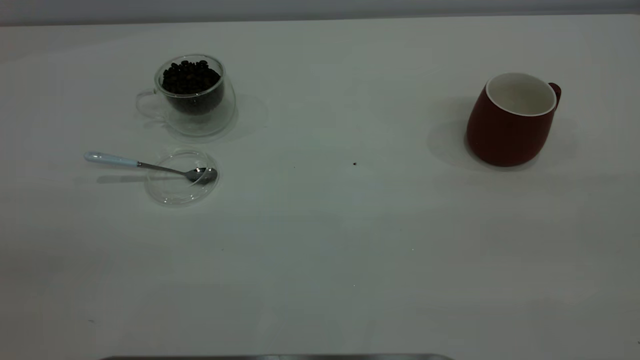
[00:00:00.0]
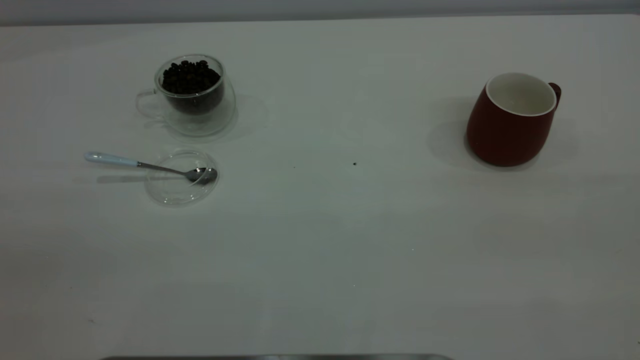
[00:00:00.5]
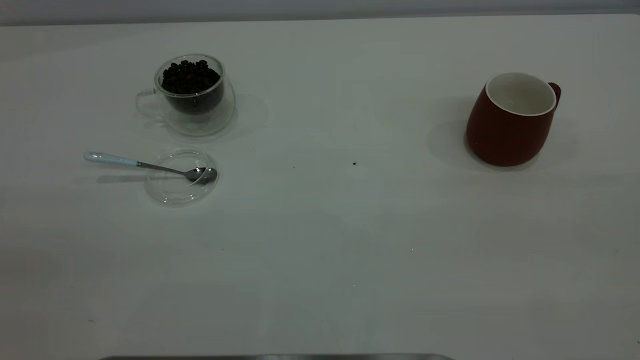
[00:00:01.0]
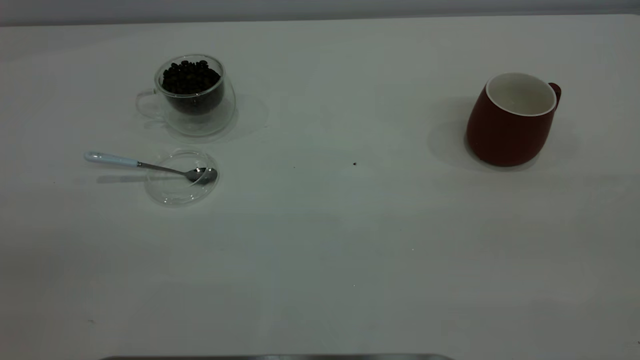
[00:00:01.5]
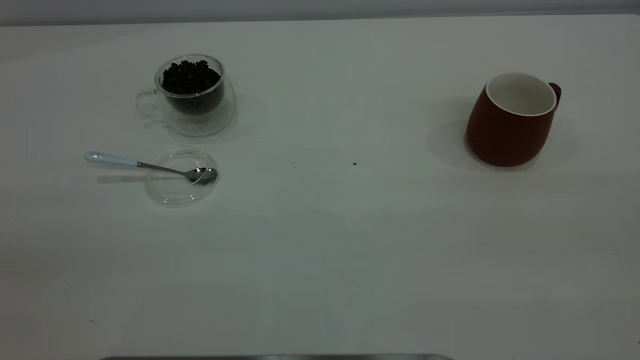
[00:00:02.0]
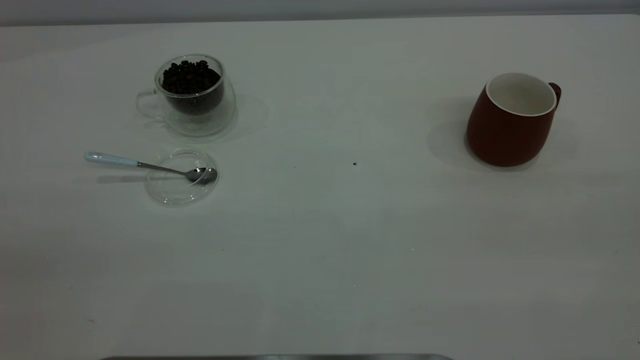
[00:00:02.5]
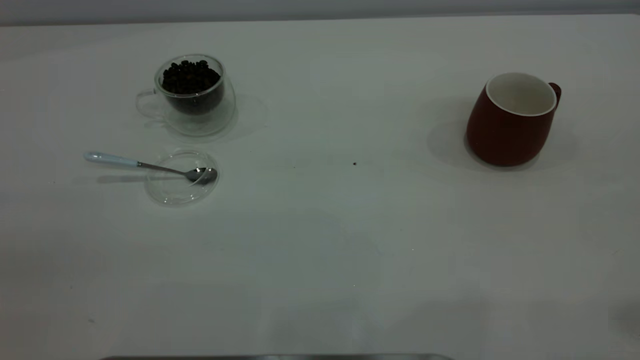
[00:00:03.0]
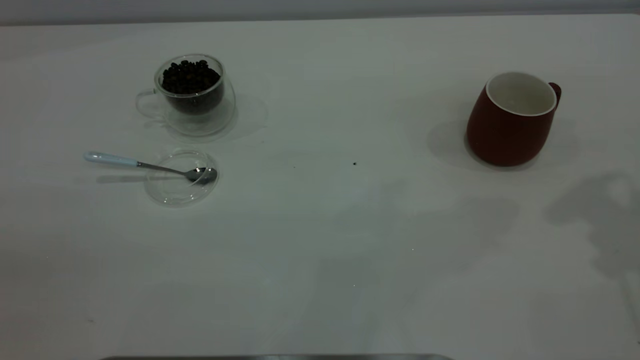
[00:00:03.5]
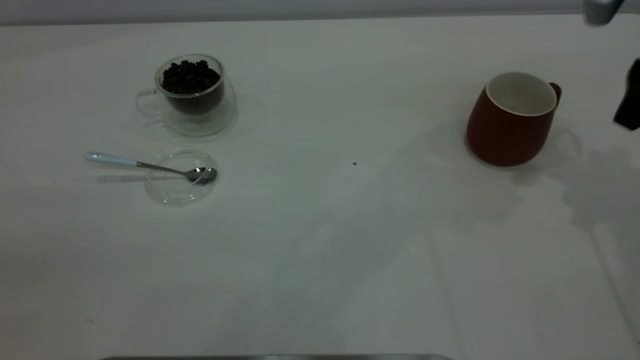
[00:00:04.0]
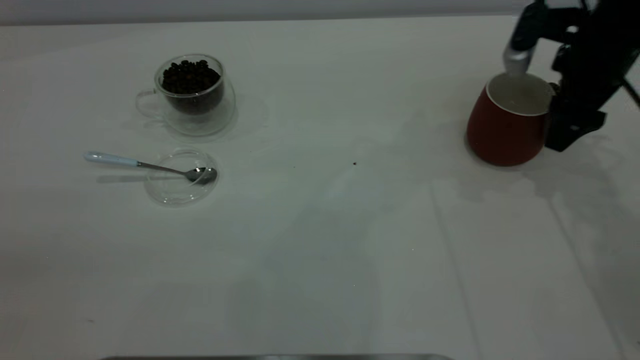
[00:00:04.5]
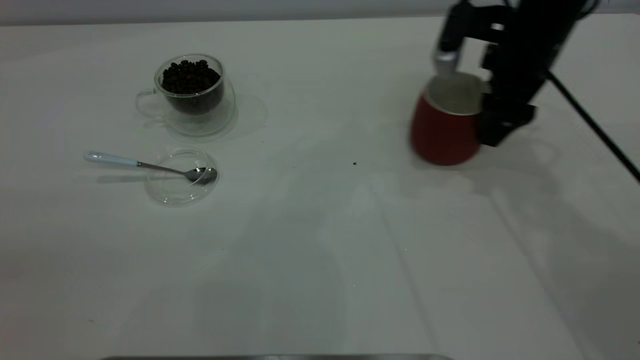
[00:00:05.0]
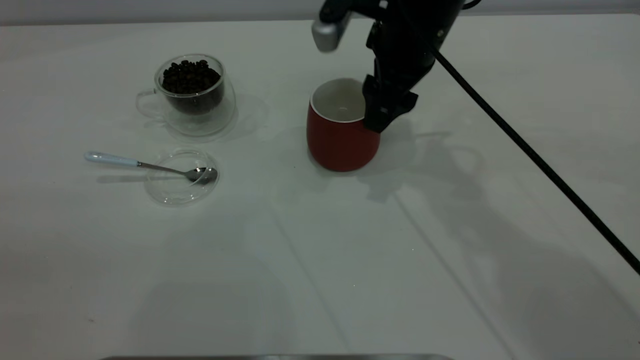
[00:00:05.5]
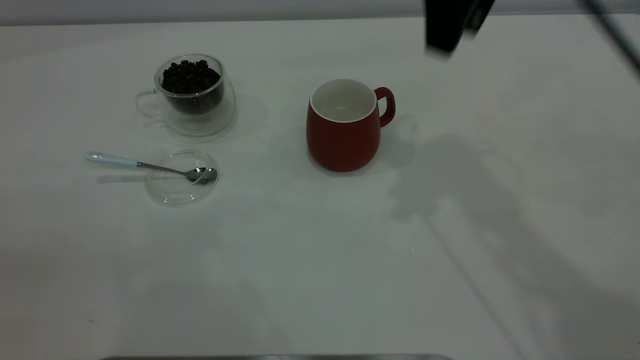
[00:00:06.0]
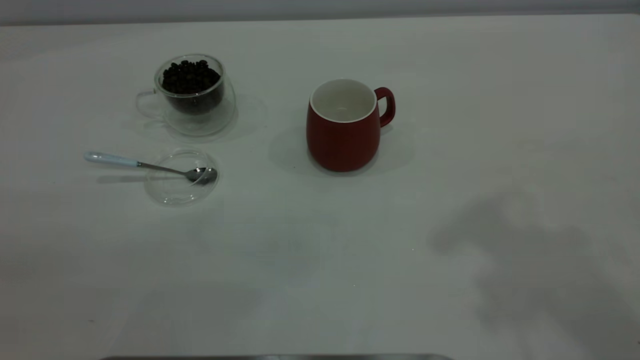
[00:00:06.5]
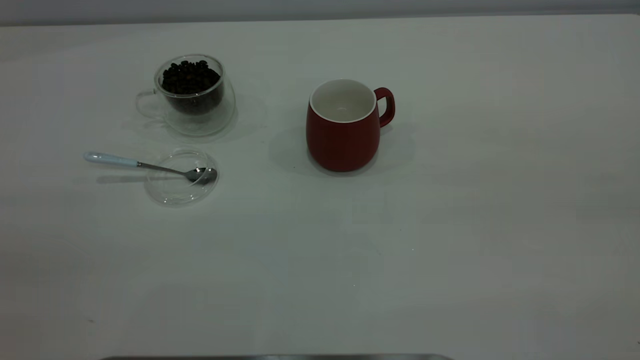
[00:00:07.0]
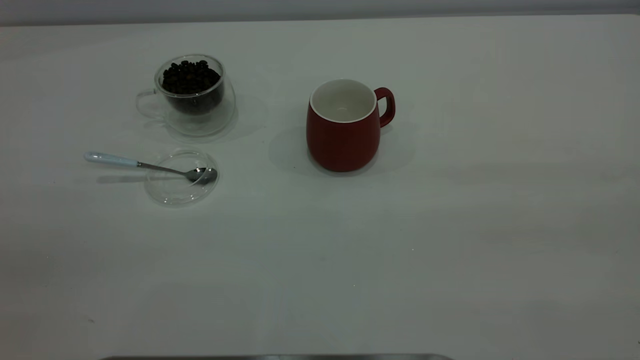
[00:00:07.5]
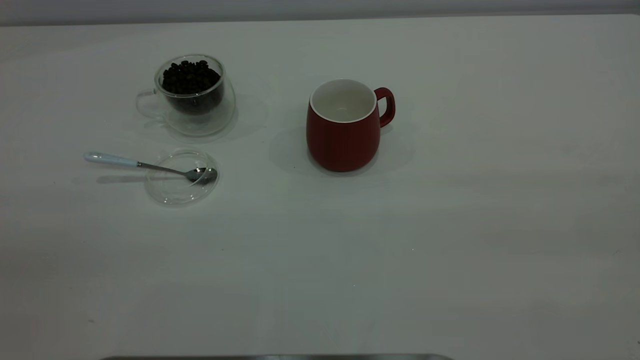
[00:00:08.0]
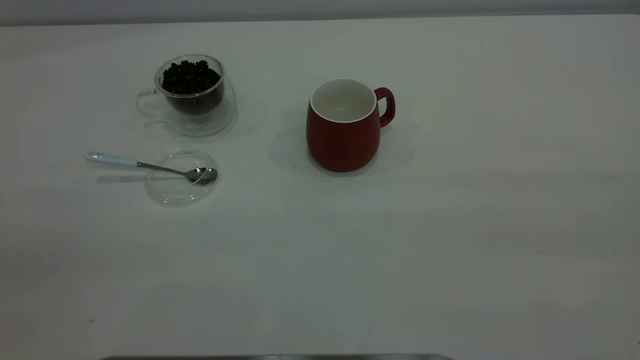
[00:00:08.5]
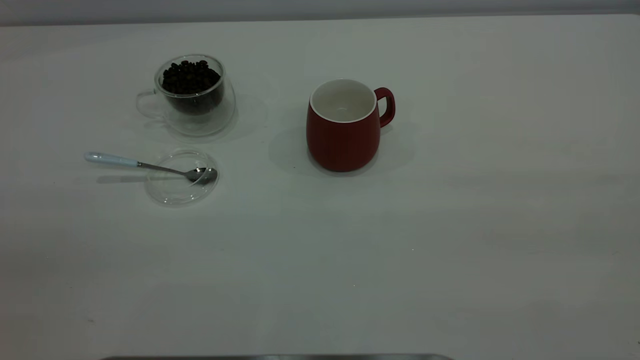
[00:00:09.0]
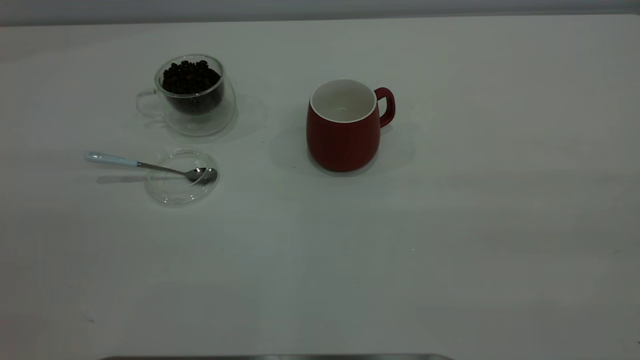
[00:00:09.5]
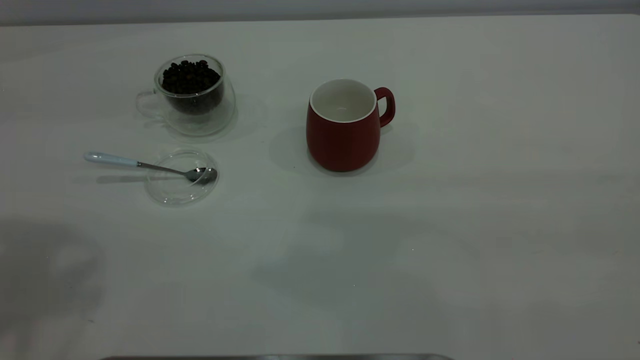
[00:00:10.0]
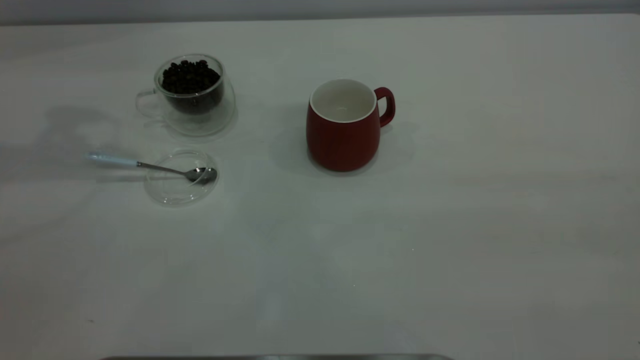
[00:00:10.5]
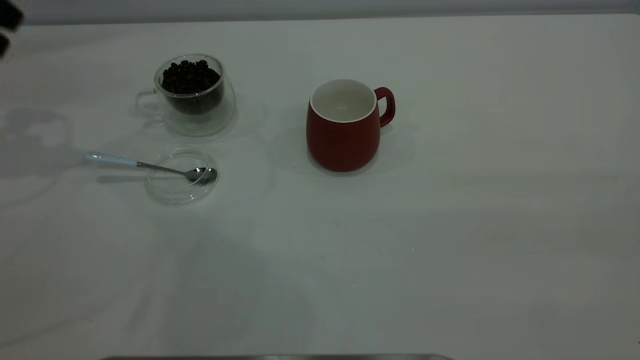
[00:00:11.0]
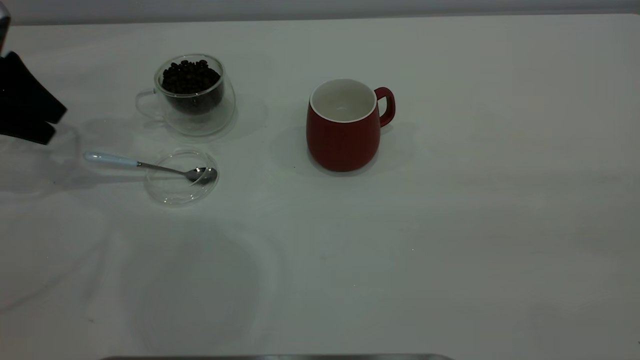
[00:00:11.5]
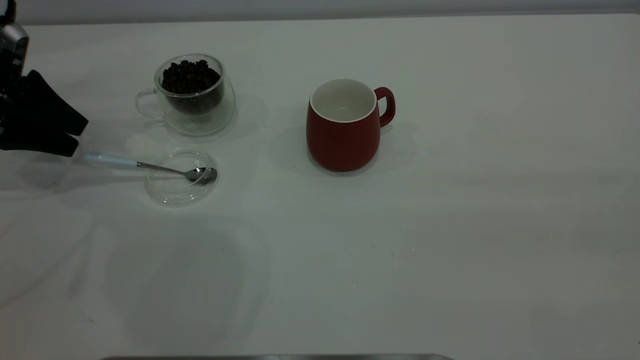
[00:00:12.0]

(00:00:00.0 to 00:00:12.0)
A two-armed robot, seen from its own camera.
Task of the whole recording: the right gripper place the red cup in the center of the table, the left gripper take the blue spoon from the cup lid and scoop out the coffee beans from the coffee cup and put them into the red cup, the left gripper put the spoon back into the cup lid.
Step, 00:00:00.0 - 00:00:05.5: Move the cup to the center of view.
00:00:00.0 - 00:00:02.0: Neither gripper changes place.
00:00:02.0 - 00:00:04.0: The right gripper travels forward and downward by about 40 cm.
00:00:04.0 - 00:00:06.0: The right gripper is displaced to the left and upward by approximately 20 cm.
00:00:06.0 - 00:00:08.0: The right gripper travels backward and to the right by approximately 40 cm.
00:00:10.0 - 00:00:12.0: The left gripper is displaced downward and forward by approximately 35 cm.

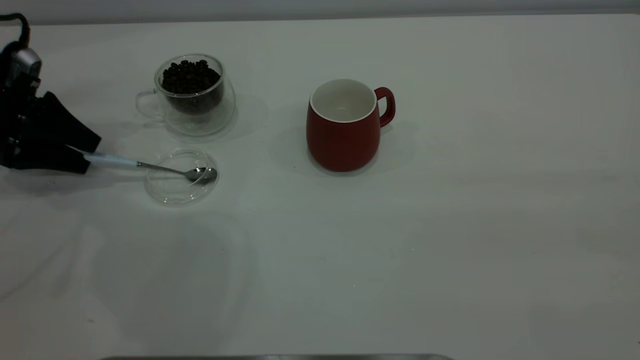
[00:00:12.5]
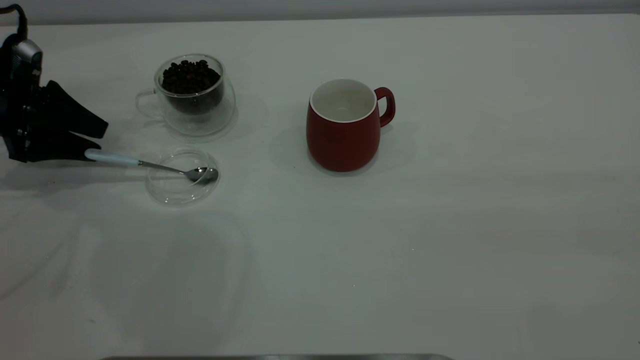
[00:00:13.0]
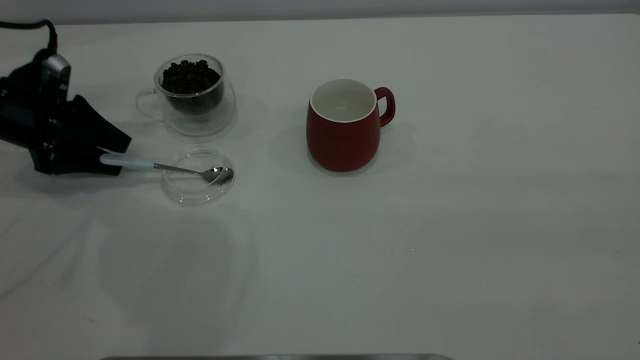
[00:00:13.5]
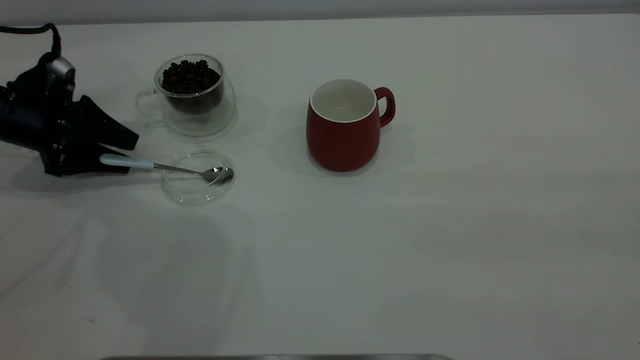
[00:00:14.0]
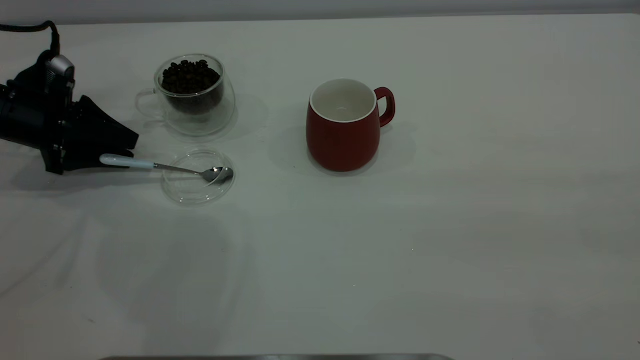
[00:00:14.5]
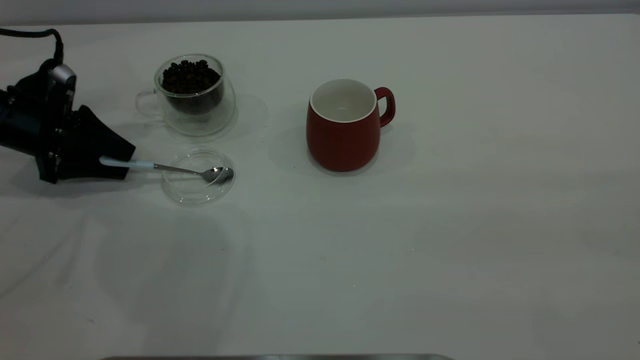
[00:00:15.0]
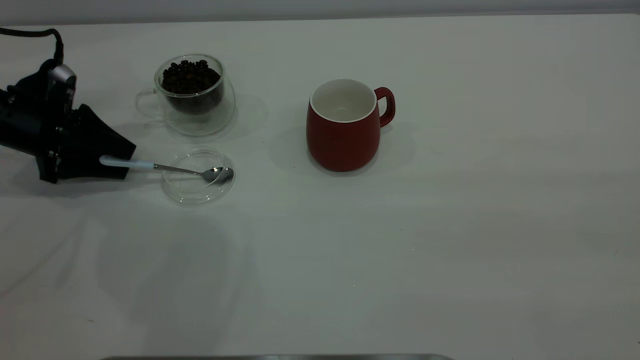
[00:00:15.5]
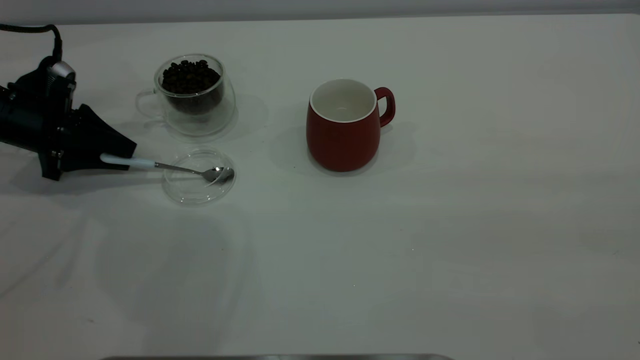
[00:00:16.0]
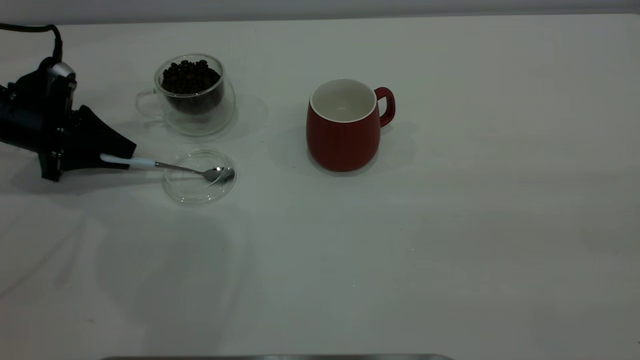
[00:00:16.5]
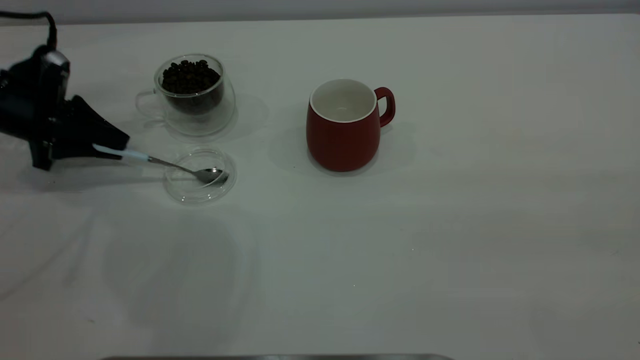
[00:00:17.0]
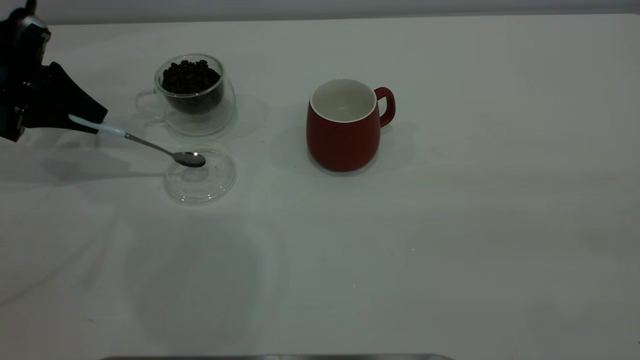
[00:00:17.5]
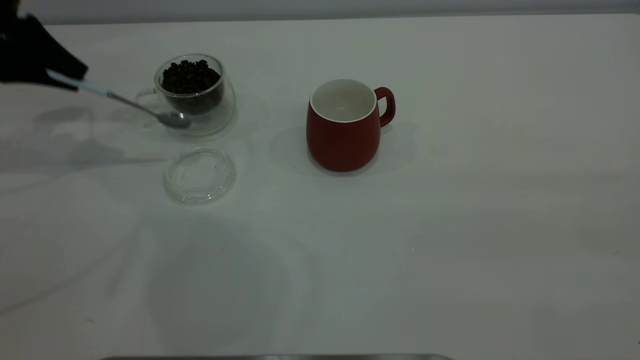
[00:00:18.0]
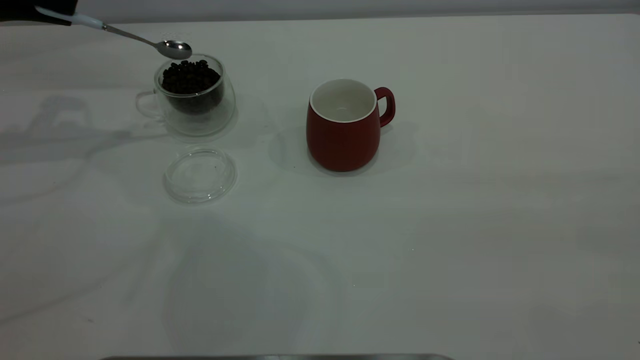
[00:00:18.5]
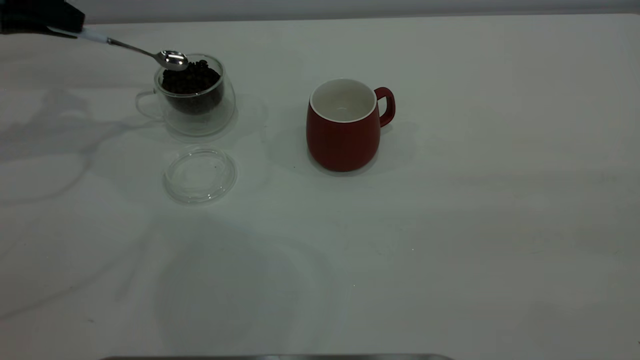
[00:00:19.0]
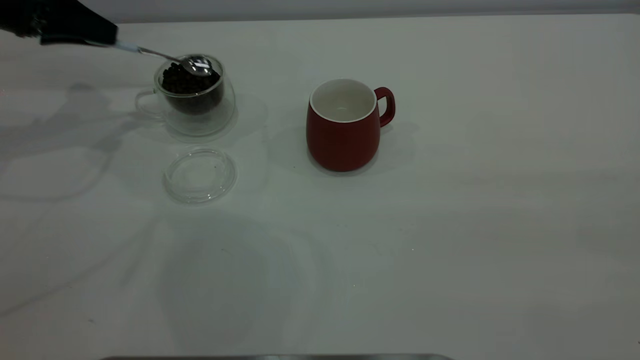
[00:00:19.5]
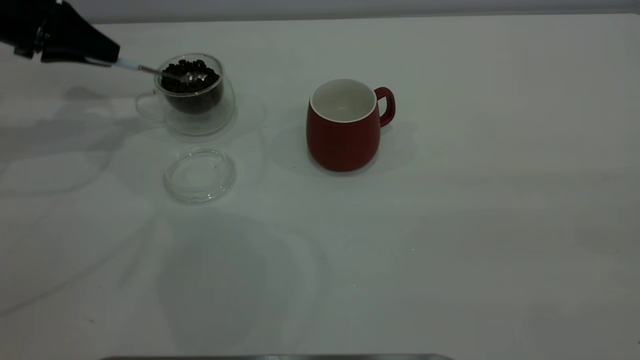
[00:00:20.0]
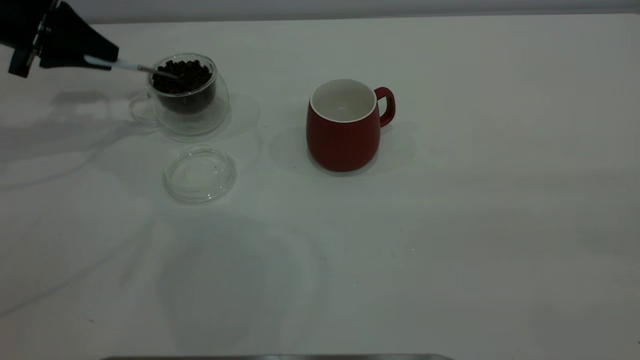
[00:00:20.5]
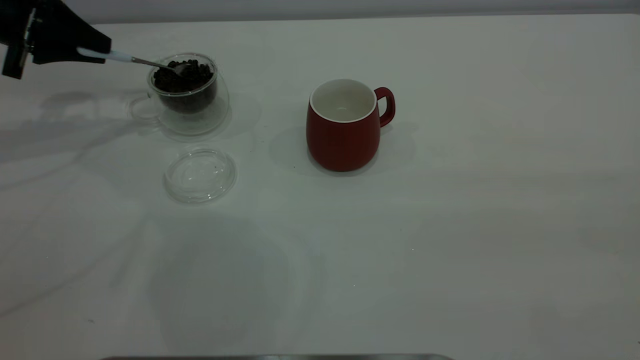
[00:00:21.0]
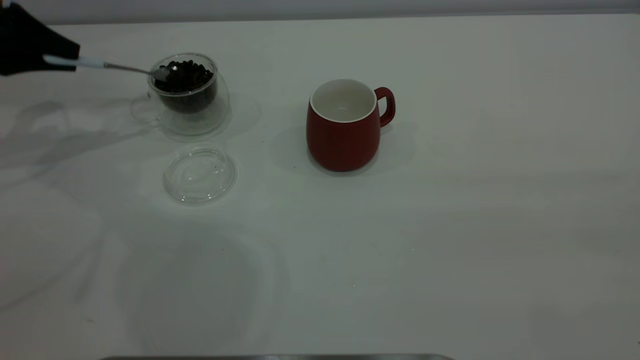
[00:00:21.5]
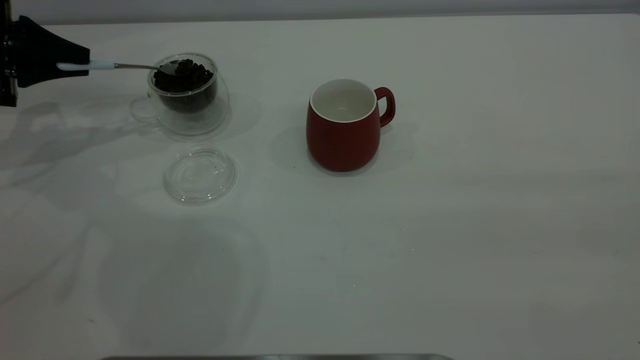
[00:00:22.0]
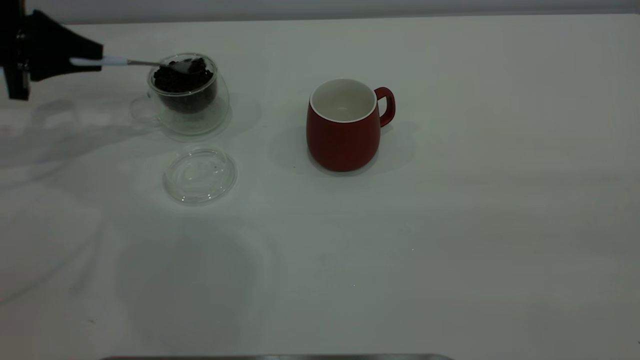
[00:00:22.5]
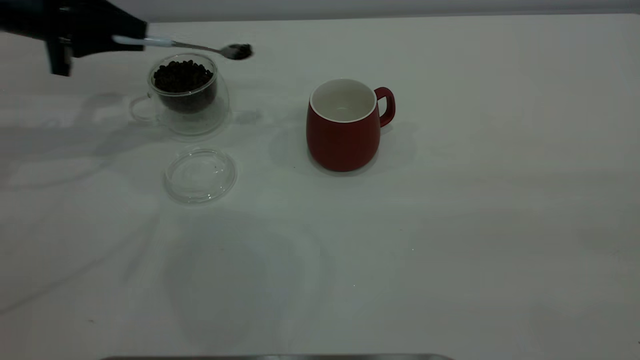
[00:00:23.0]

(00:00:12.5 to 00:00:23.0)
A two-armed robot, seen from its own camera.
Task of the whole recording: the right gripper place the red cup in the center of the table, the left gripper take the blue spoon from the cup lid and scoop out the coffee beans from the coffee cup and put them into the red cup, the left gripper put the spoon back into the cup lid.
Step, 00:00:12.5 - 00:00:18.0: Pick up the spoon.
00:00:12.5 - 00:00:14.5: The grippers stay close to where they were, moving slightly.
00:00:14.5 - 00:00:16.5: The left gripper closes up.
00:00:16.5 - 00:00:19.0: The left gripper moves upward, roughly 15 cm.
00:00:21.0 - 00:00:23.0: The left gripper moves to the right, some 5 cm.
